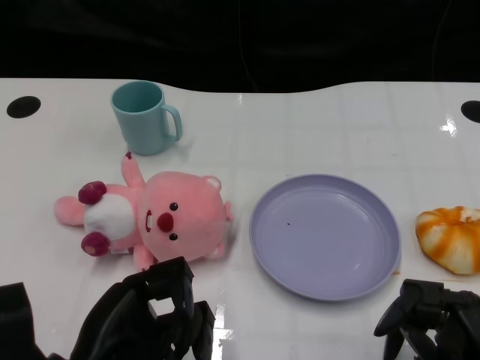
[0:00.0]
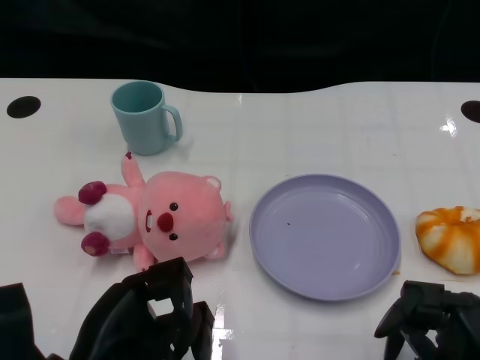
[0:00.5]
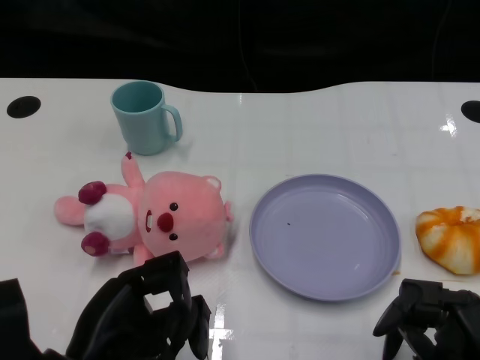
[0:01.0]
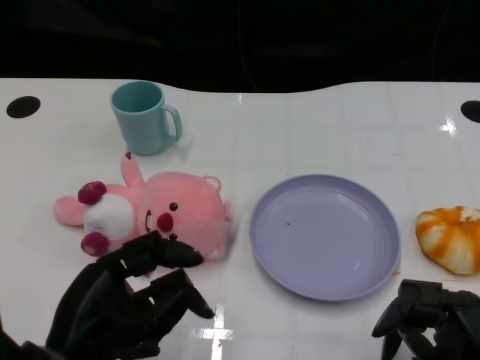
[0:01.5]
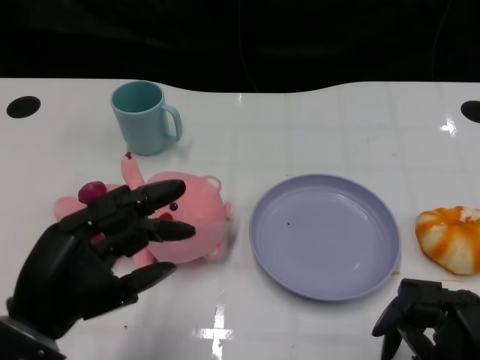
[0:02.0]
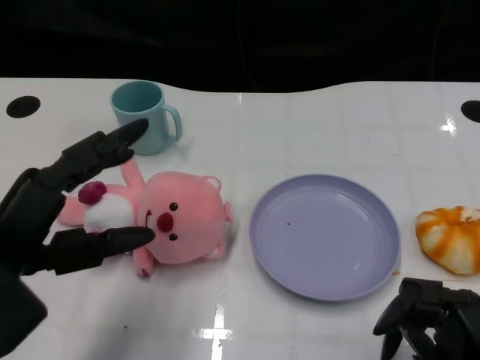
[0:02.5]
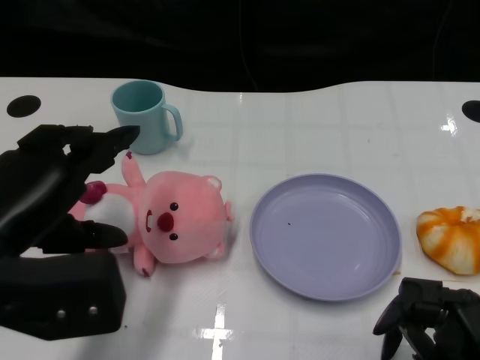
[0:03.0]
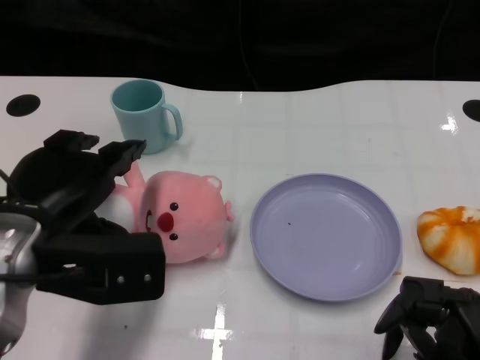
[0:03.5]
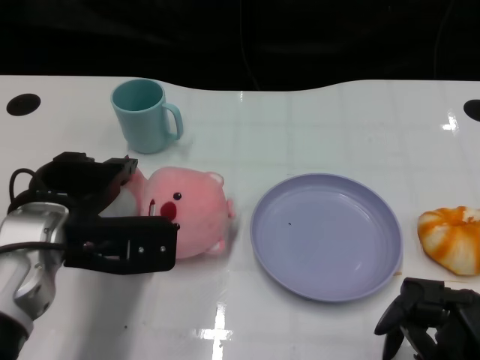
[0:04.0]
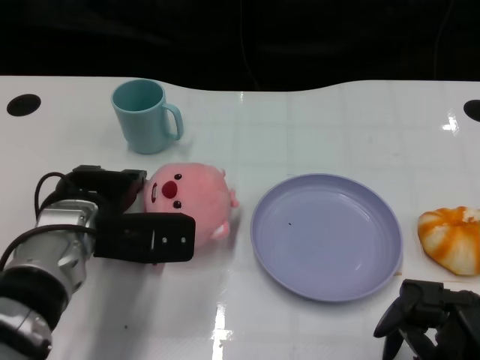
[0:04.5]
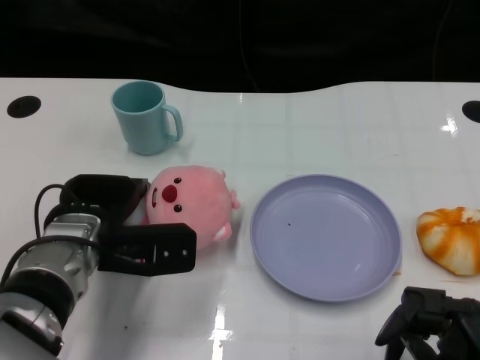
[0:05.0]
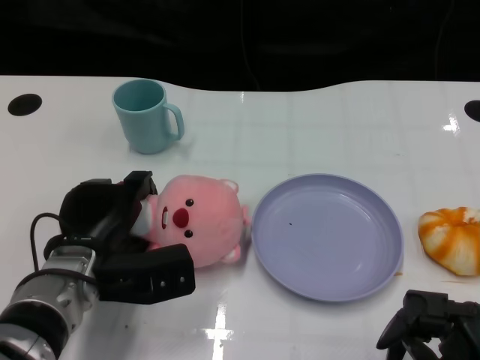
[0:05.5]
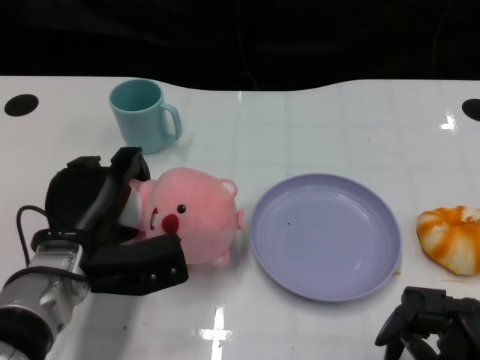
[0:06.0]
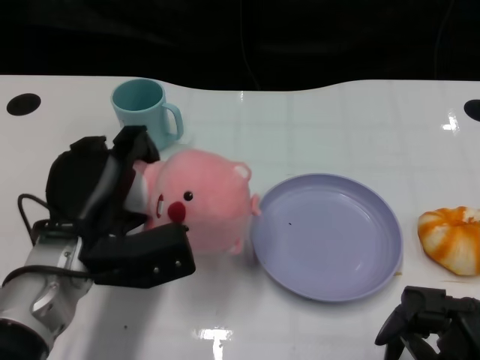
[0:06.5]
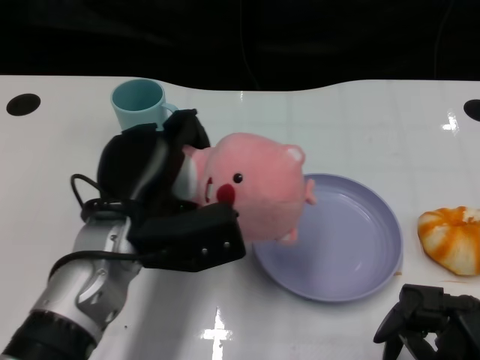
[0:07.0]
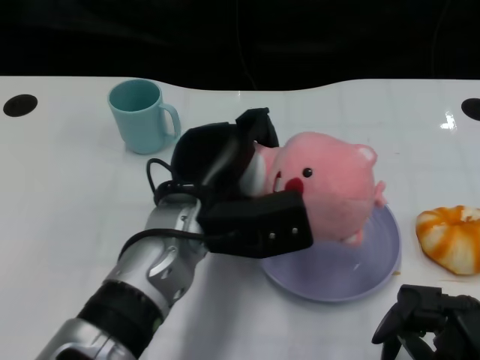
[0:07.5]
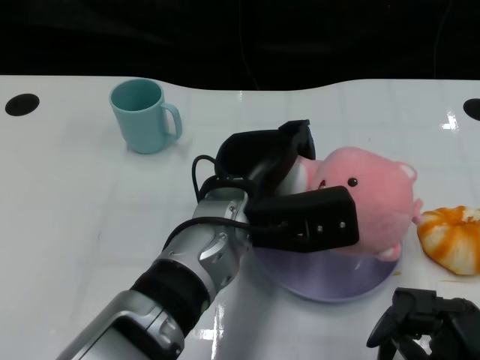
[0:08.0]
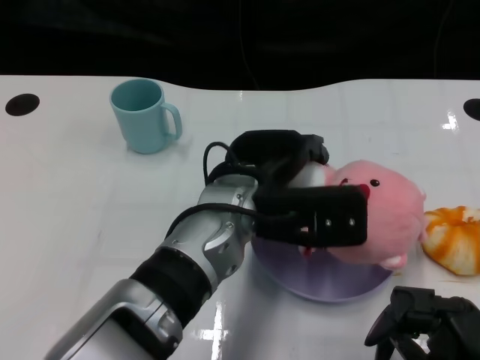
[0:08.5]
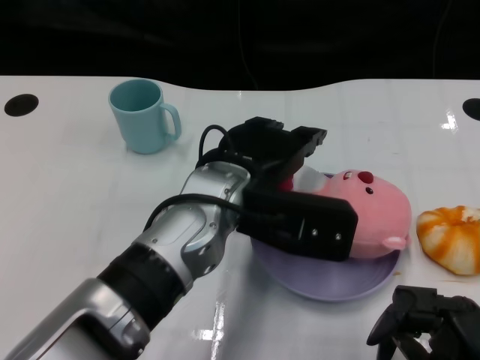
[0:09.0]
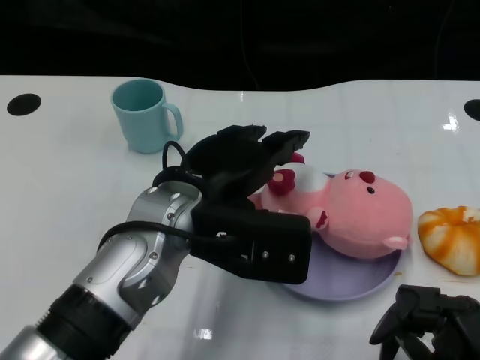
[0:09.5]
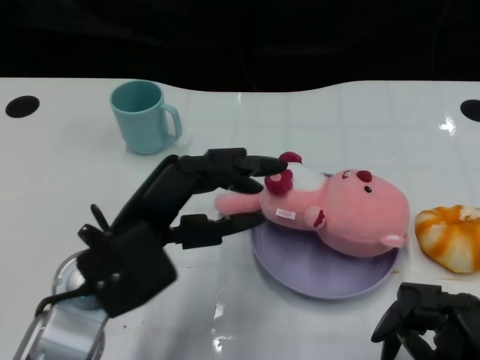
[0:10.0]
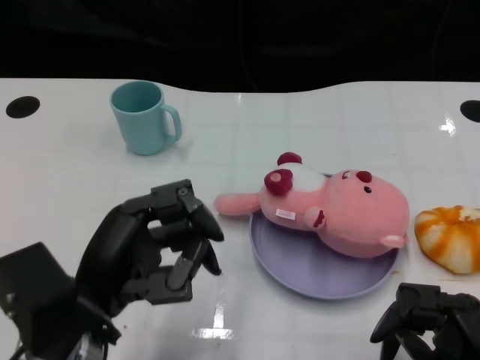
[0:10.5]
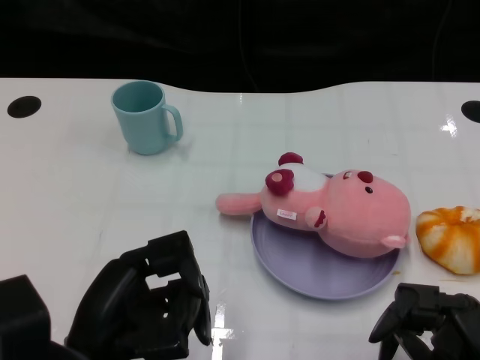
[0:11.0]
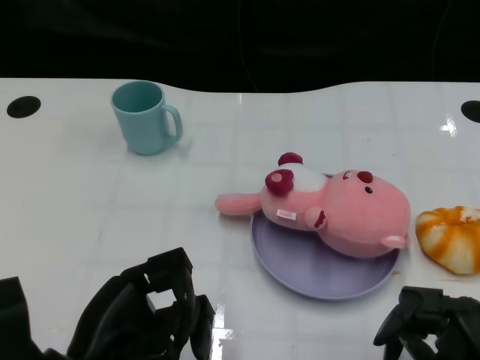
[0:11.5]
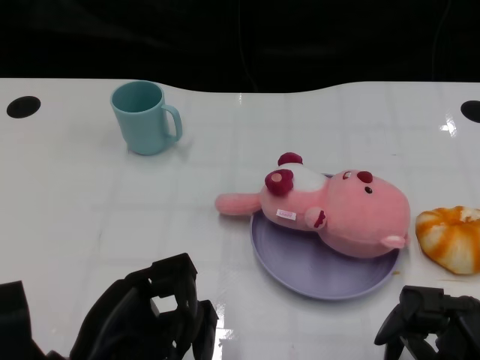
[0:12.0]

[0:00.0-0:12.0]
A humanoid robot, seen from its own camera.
Task of the whole recording: Pick up the doll on one side of the plate and place it into the plate.
Step, 1.0 to 5.5 s: Grasp the pink doll with the left gripper.
Step, 6.0 to 9.0 s: Place the pink doll into the plate with the left gripper.
2.0 to 4.0 s: The left hand heads forward, covering approximately 10 cm.
4.0 to 6.0 s: The left hand is displaced downward by some 5 cm.
6.0 to 8.0 s: The left hand moves to the right, about 15 cm.
8.0 to 10.0 s: The left hand is displaced to the left and backward by roughly 15 cm.
10.0 to 12.0 s: The left hand is displaced backward and downward by some 10 cm.

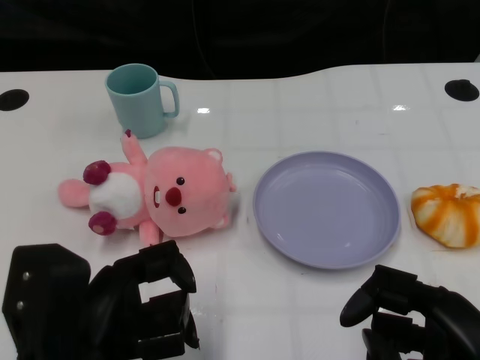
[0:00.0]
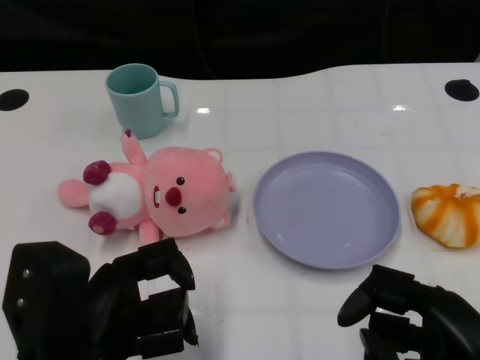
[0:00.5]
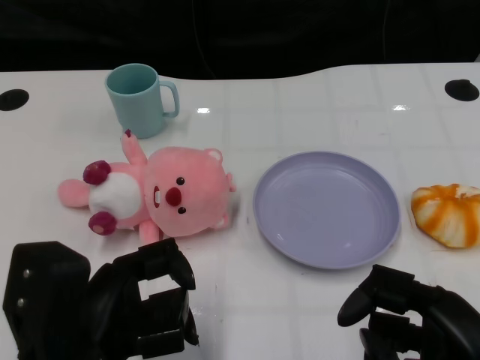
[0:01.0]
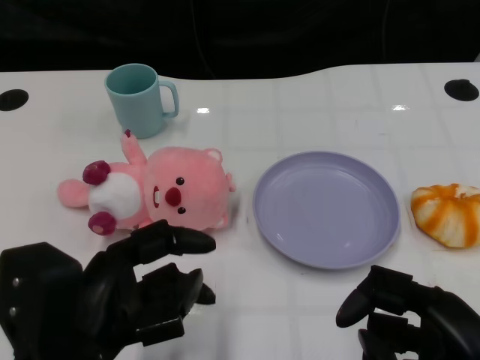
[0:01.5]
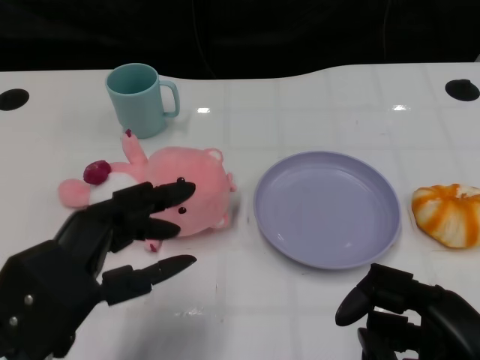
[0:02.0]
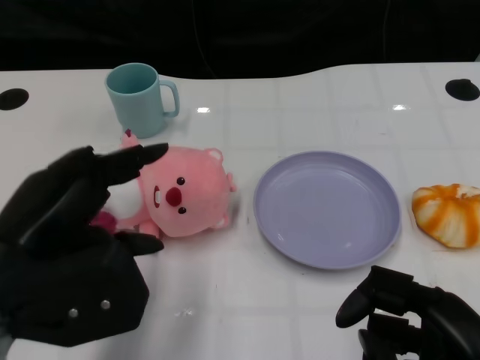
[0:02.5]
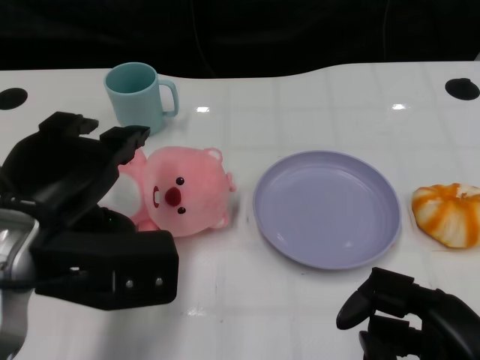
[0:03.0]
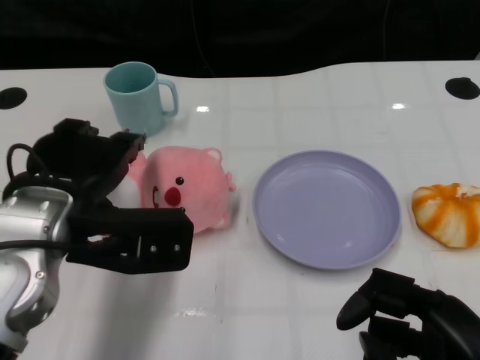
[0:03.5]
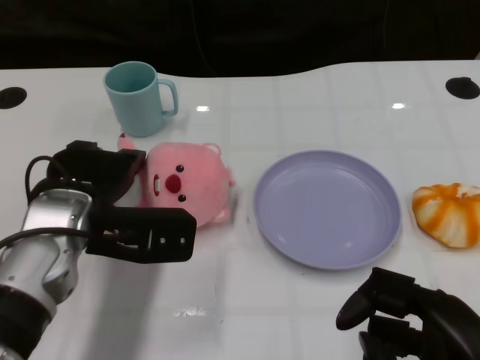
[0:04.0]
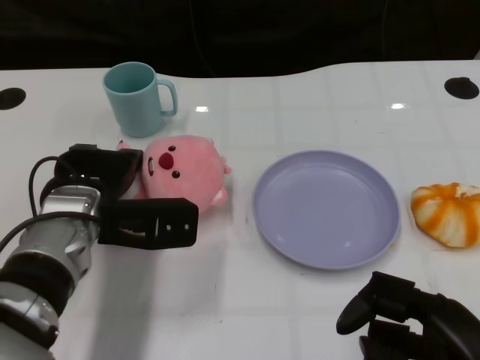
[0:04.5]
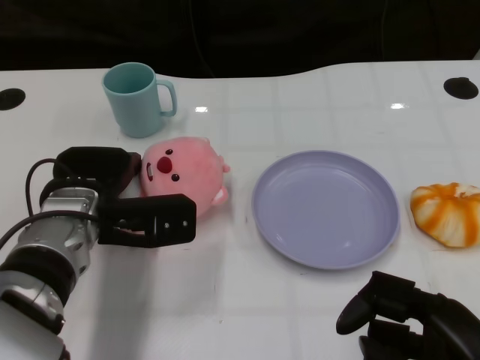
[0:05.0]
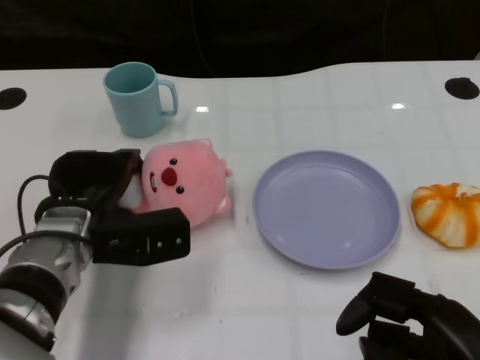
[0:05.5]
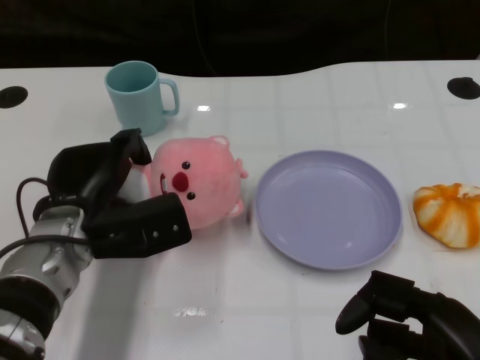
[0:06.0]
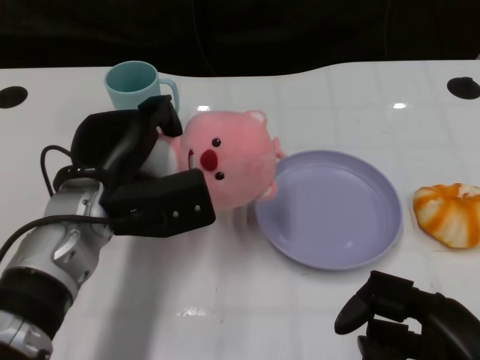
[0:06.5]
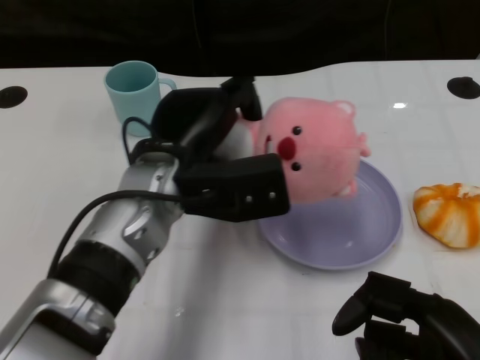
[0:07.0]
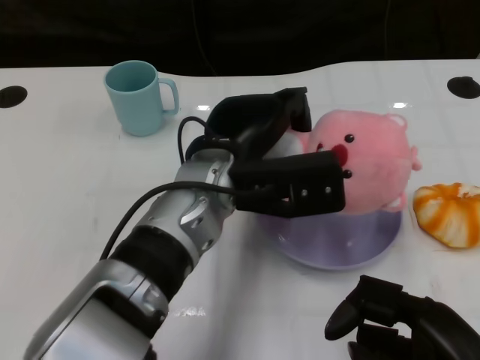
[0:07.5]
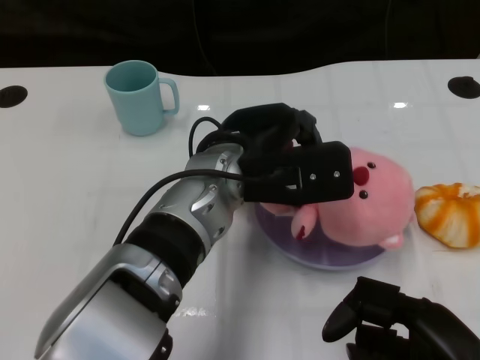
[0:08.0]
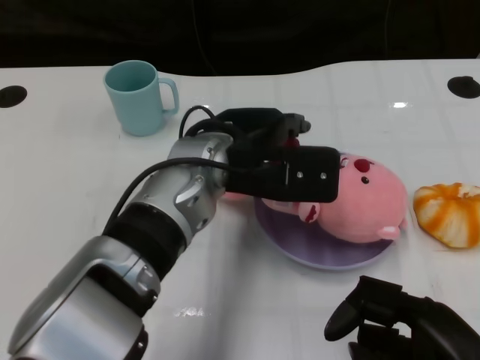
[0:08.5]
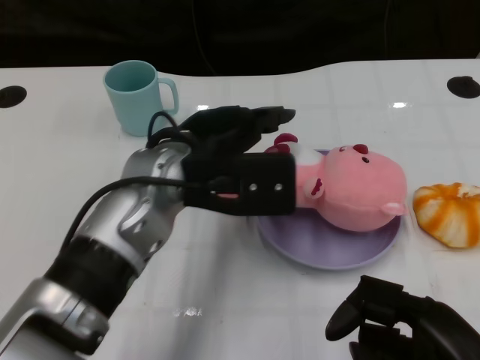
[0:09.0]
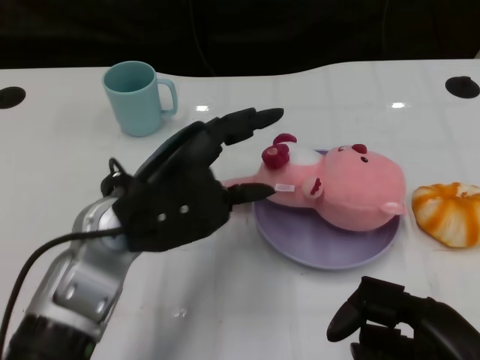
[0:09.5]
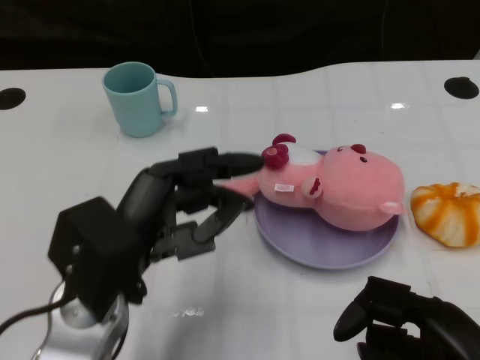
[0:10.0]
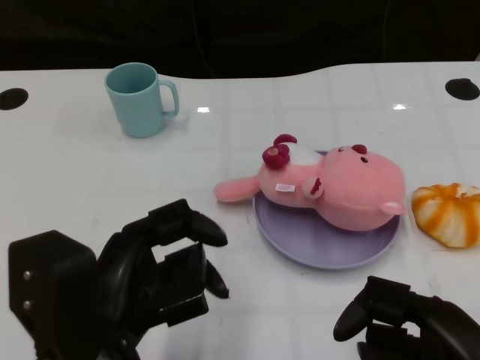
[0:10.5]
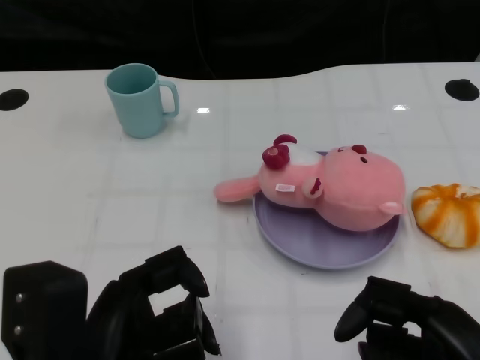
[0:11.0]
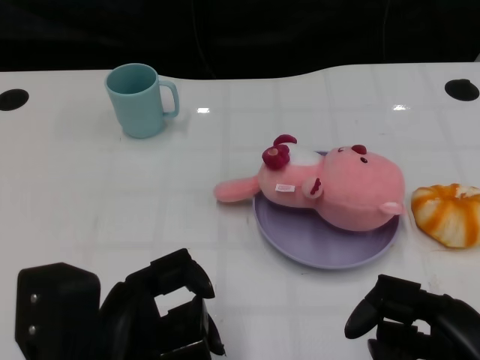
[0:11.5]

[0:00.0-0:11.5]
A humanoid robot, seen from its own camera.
Task of the whole recording: Pick up the doll on one side of the plate and place it into the plate.
Step, 1.5 to 5.5 s: Grasp the pink doll with the left gripper.
Step, 6.5 to 8.5 s: Place the pink doll into the plate with the left gripper.
2.0 to 4.0 s: The left hand heads forward, covering some 15 cm.
6.0 to 7.5 s: The left hand heads to the right and upward, covering about 15 cm.
7.5 to 9.5 s: The left hand is displaced to the left by some 10 cm.
9.5 to 11.5 s: The left hand heads backward, covering approximately 15 cm.

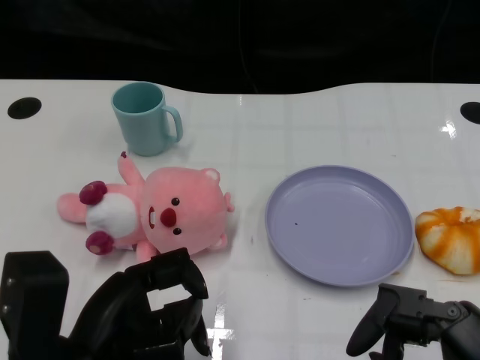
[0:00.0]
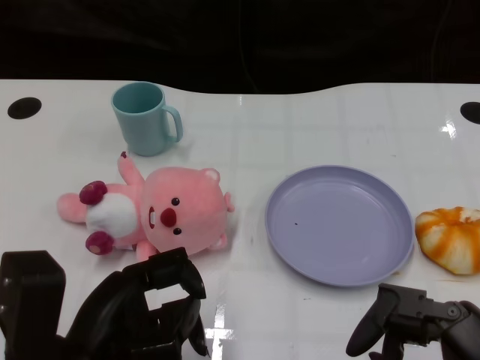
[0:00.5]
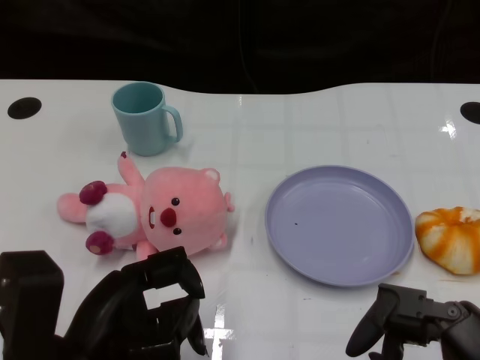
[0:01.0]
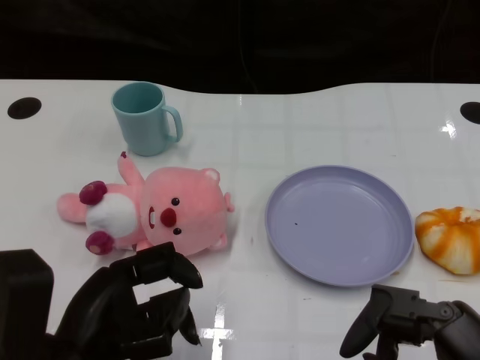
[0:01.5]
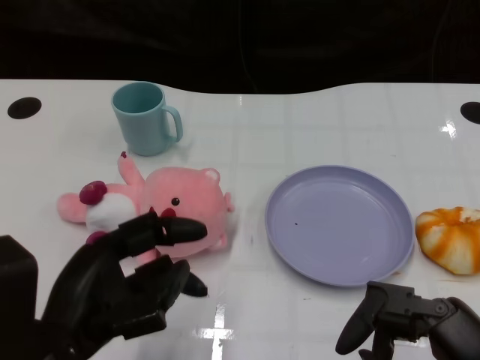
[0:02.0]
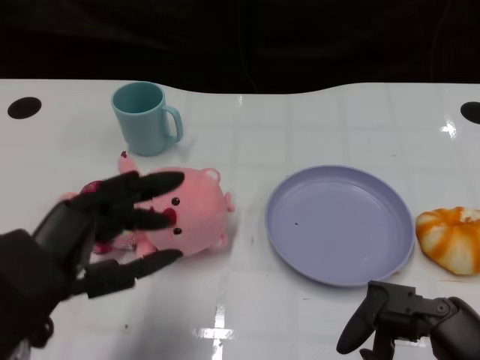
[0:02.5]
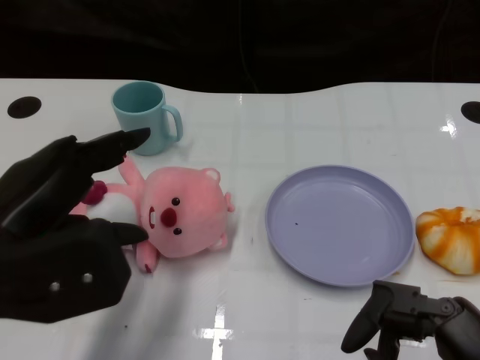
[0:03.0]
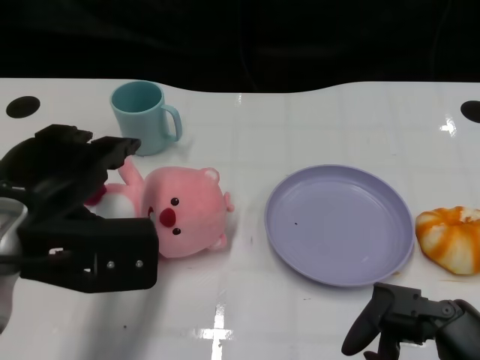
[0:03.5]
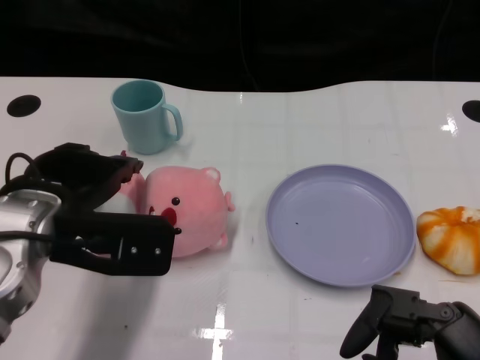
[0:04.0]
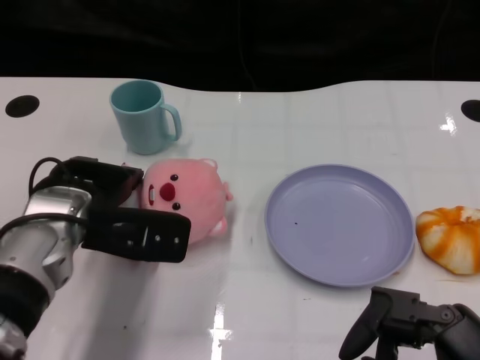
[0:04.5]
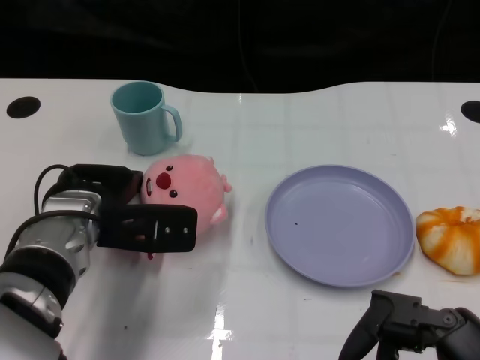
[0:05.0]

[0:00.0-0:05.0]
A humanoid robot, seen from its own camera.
Task of the whole recording: Pick up the doll on one side of the plate and place it into the plate.
2.5 to 5.0 s: The left hand heads forward and downward, covering approximately 15 cm.
